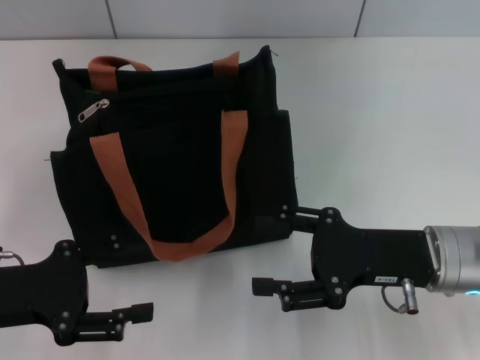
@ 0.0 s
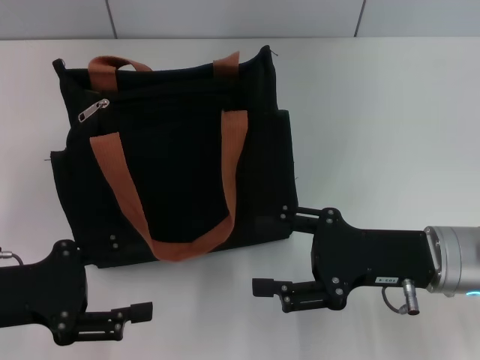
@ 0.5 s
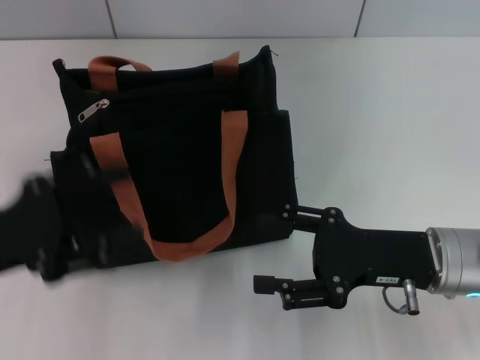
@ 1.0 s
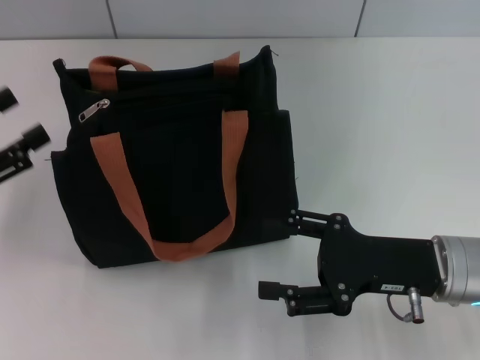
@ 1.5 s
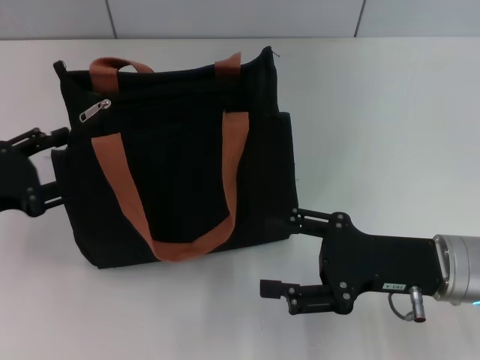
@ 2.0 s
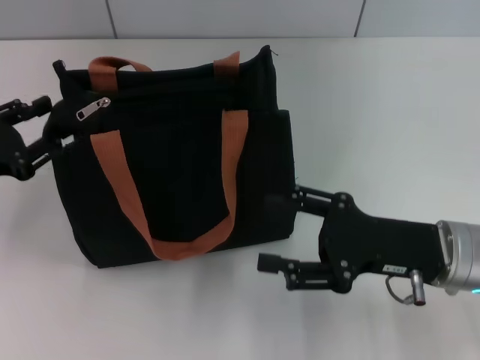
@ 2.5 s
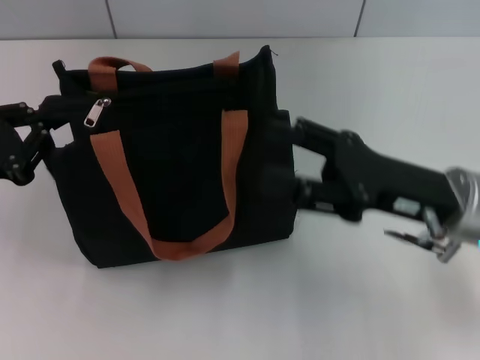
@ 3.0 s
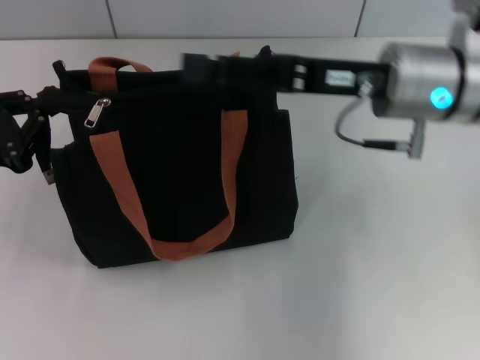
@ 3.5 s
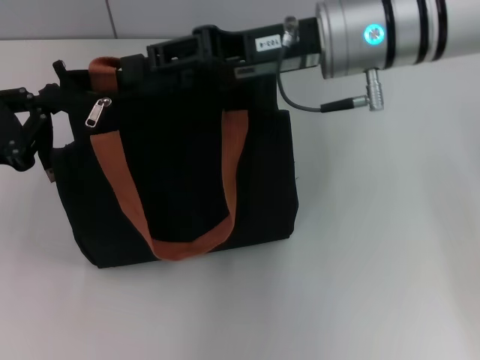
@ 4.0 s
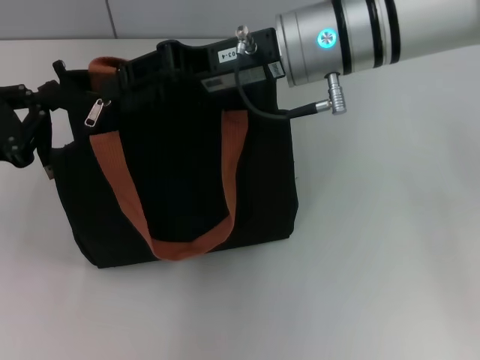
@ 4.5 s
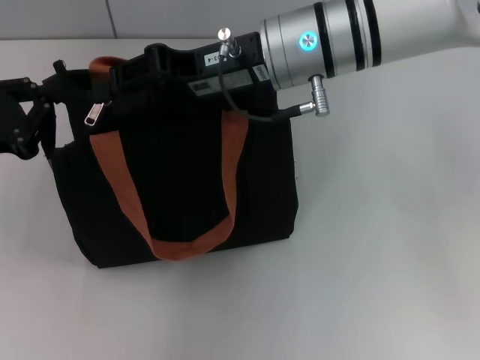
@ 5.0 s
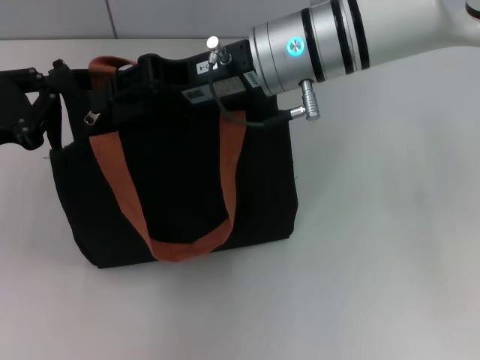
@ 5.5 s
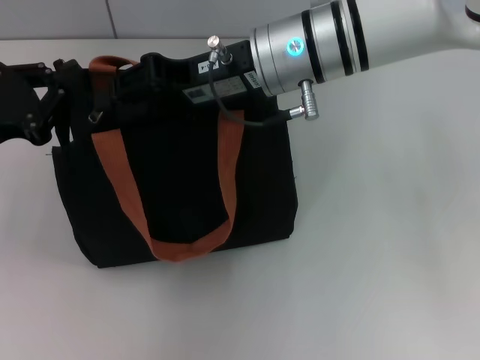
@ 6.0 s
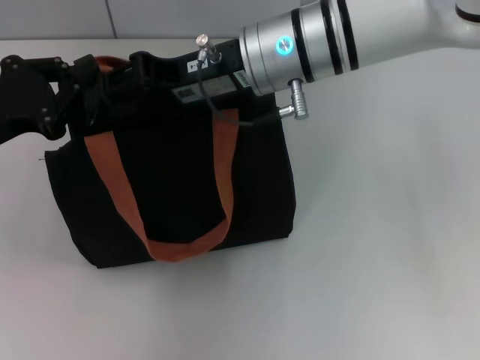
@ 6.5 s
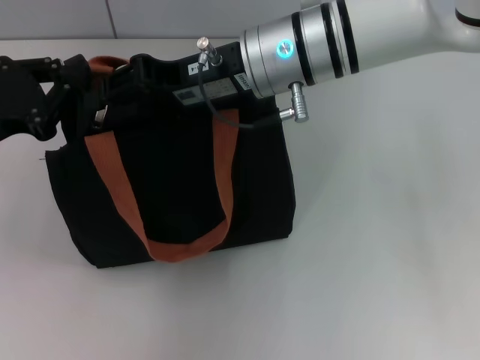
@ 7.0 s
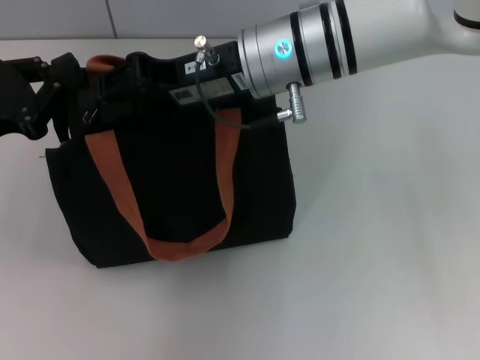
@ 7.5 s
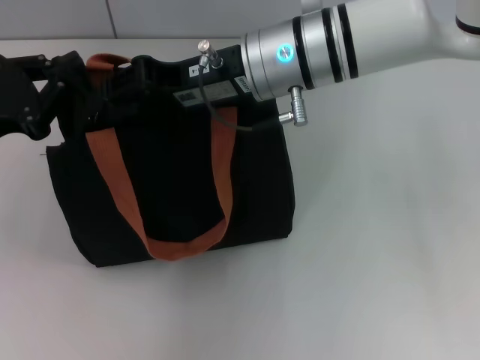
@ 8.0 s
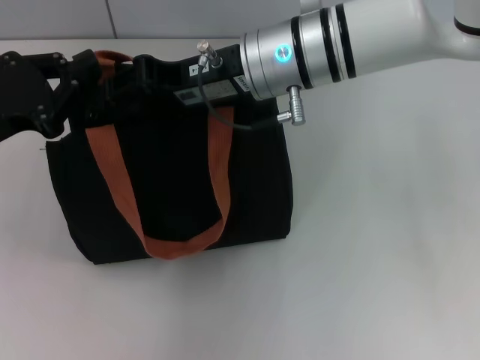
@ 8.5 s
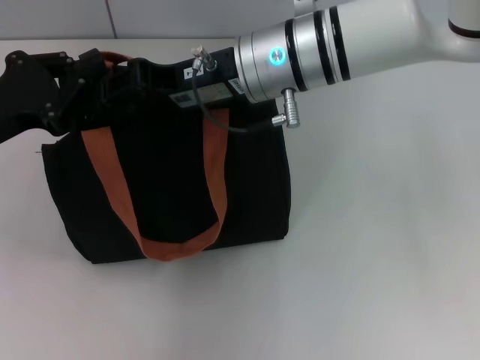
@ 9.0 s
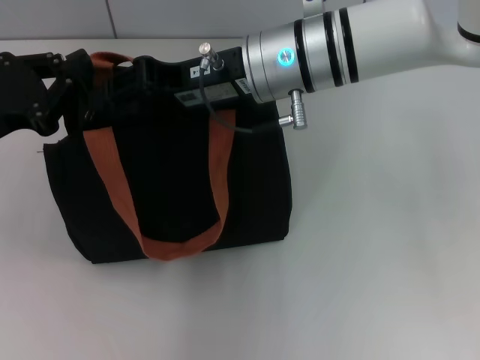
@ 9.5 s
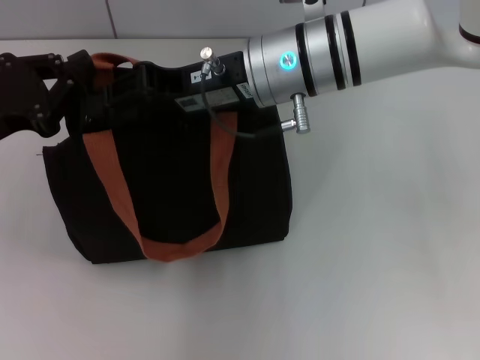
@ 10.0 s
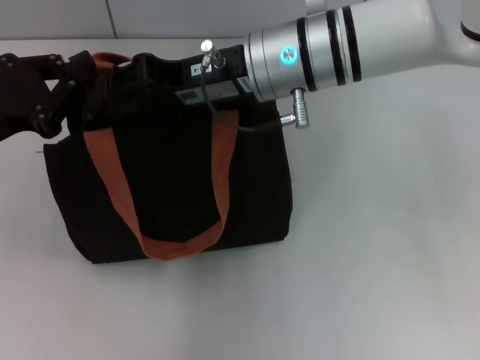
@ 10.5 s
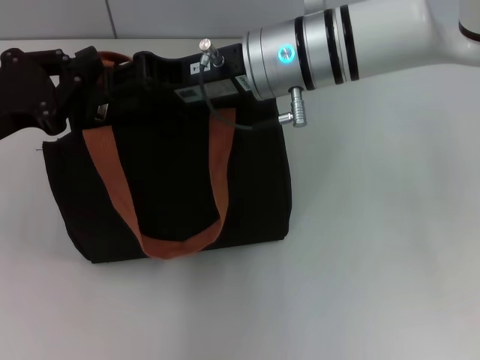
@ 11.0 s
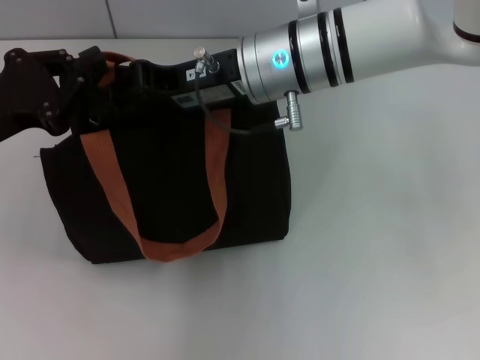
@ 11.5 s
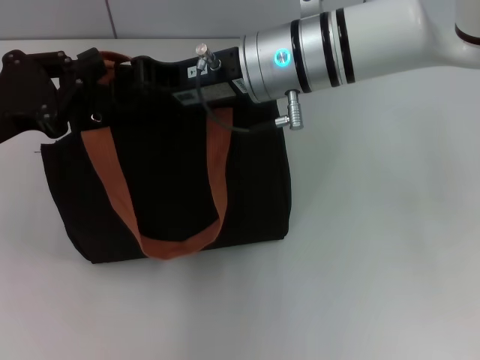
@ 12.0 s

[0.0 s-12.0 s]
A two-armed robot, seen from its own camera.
0.0 to 2.0 s: The left gripper goes some 5 cm forward.
2.0 to 4.0 s: The right gripper shifts some 25 cm upward, forward and to the left; the left gripper closes its fingers.
4.0 to 6.0 s: The right gripper shifts by some 5 cm.
6.0 to 8.0 s: Both grippers stay about where they are.
8.0 to 10.0 s: The grippers stay close to where they were, moving slightly.
10.0 to 12.0 s: Both grippers stay put.

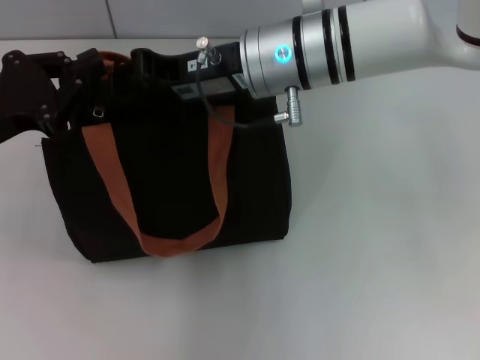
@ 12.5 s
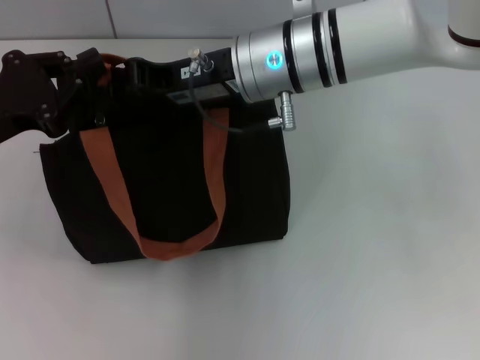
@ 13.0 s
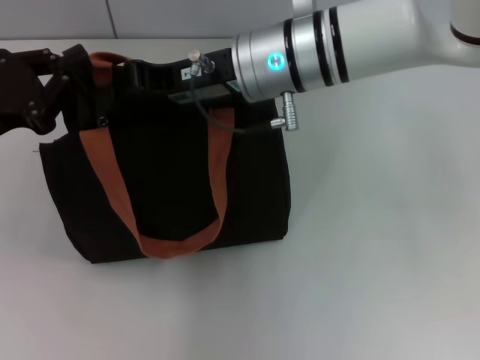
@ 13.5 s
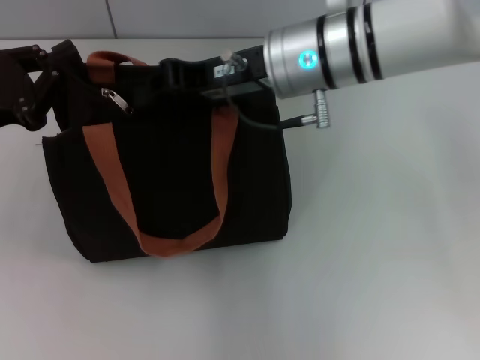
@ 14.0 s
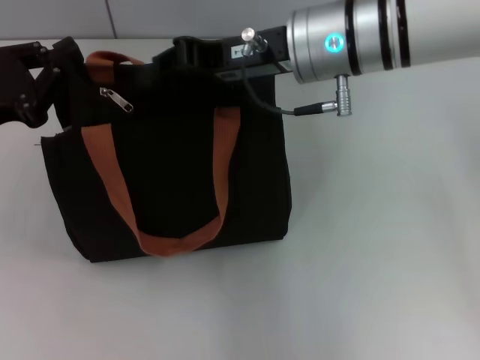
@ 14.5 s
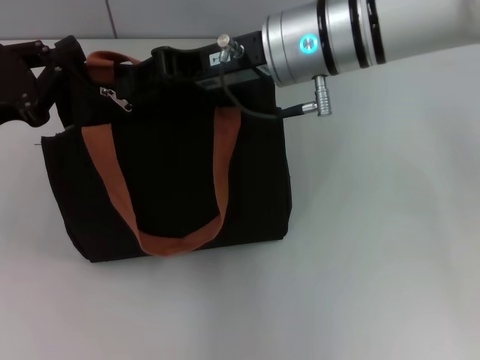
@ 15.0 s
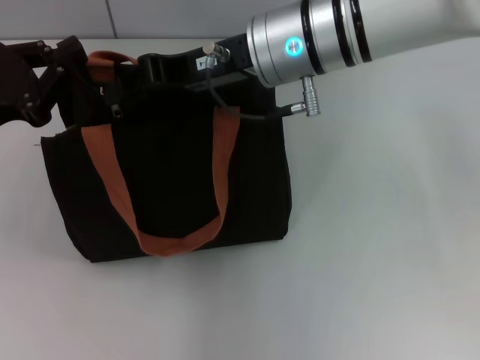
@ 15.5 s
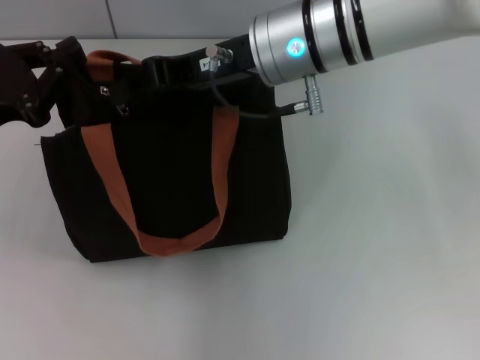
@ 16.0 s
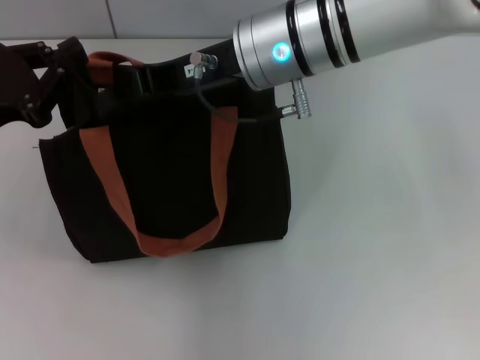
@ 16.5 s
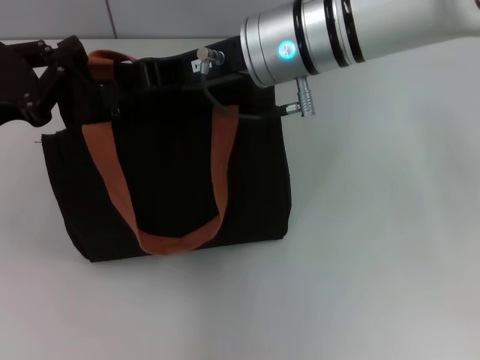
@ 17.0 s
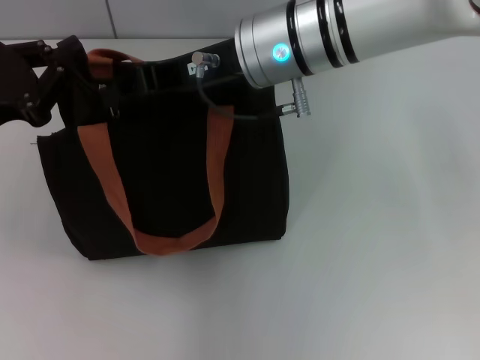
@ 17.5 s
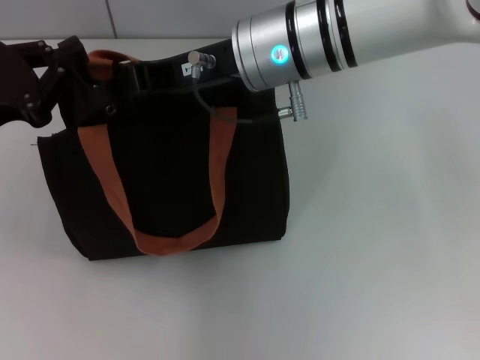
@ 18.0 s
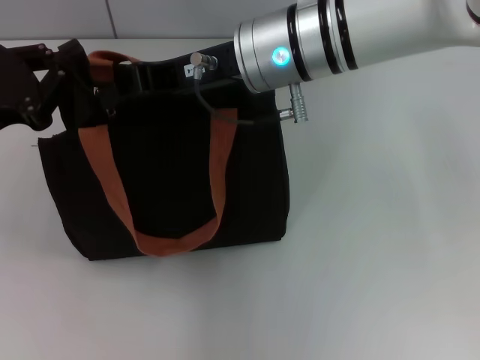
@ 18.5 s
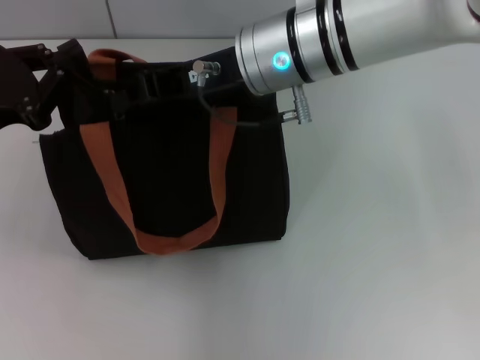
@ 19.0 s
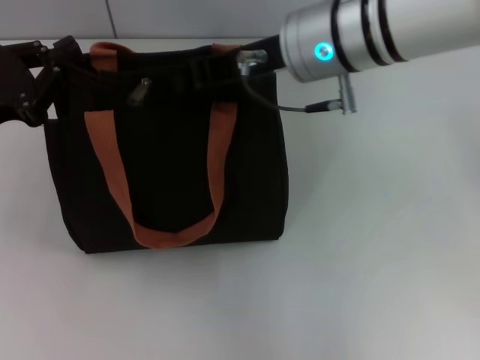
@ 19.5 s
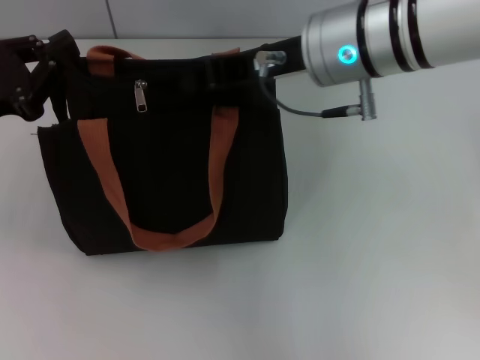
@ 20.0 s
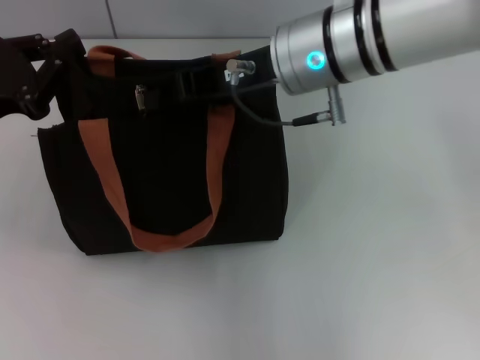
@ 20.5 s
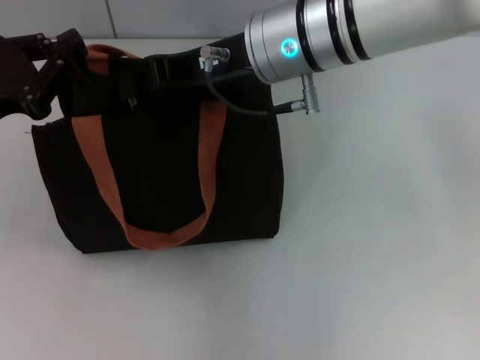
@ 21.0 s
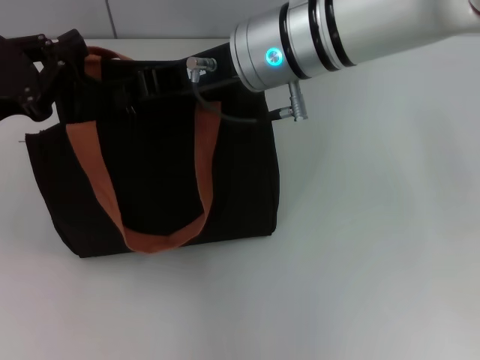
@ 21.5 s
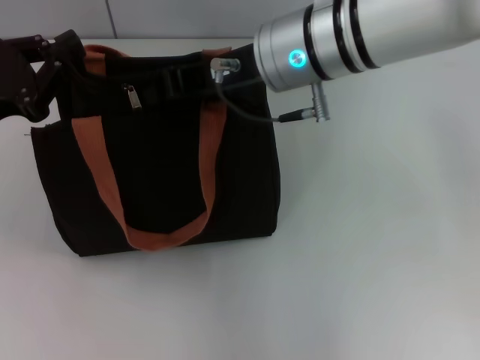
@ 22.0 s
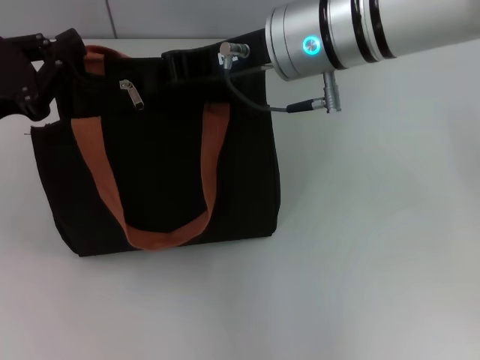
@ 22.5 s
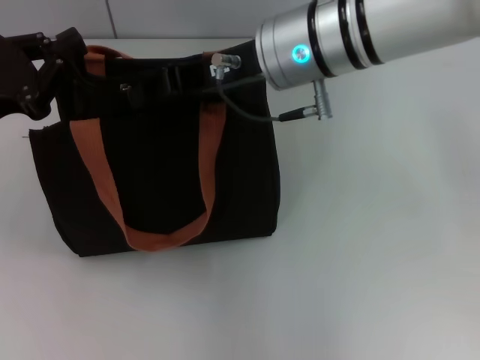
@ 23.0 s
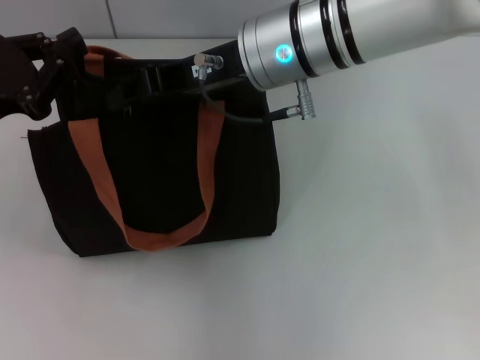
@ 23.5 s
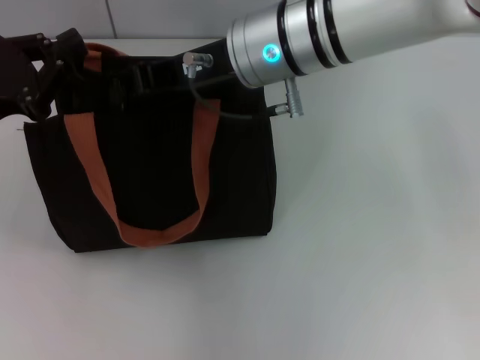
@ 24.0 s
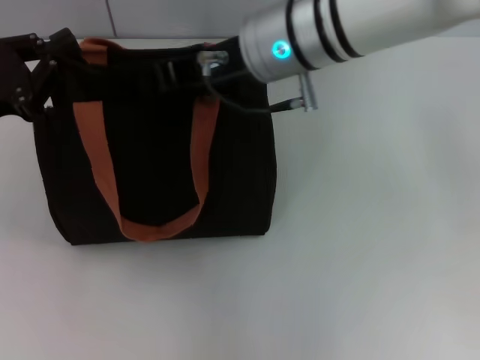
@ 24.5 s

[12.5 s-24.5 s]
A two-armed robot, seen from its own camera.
12.5 to 14.5 s: The grippers make only small movements.
14.5 to 16.5 s: The grippers make only small movements.
16.5 to 18.5 s: Neither gripper changes place.
20.5 to 24.5 s: The grippers move only a little.

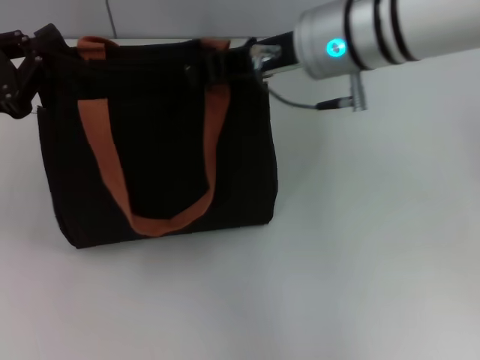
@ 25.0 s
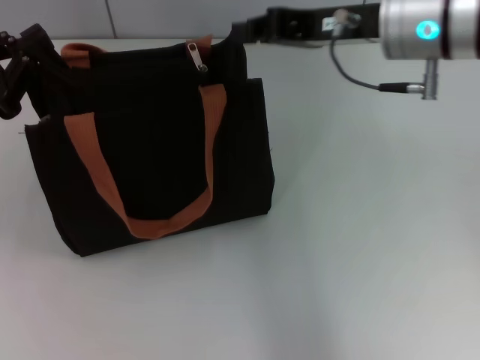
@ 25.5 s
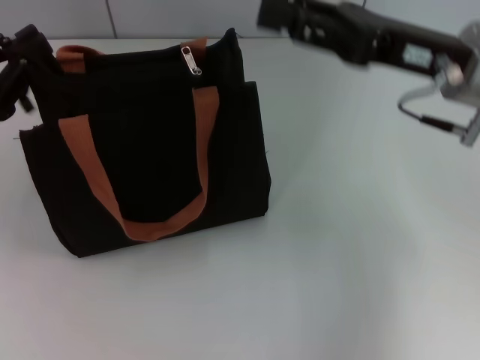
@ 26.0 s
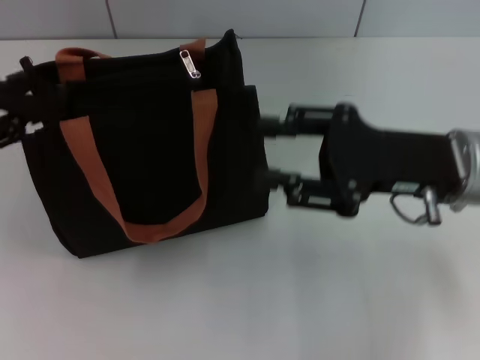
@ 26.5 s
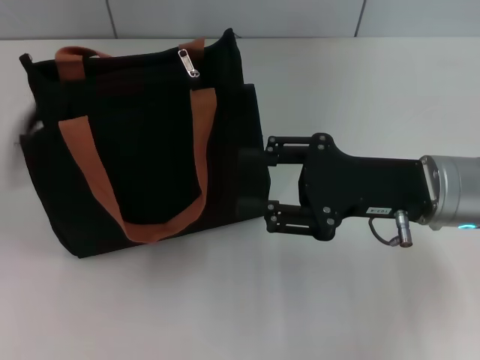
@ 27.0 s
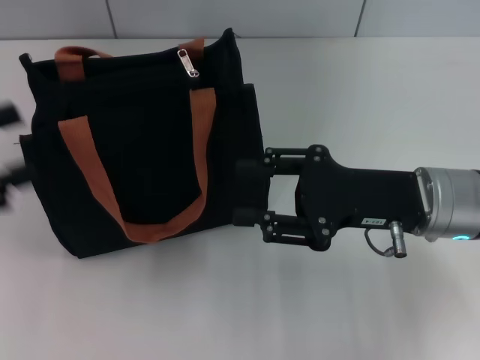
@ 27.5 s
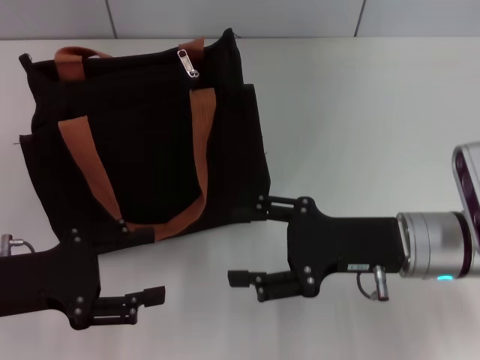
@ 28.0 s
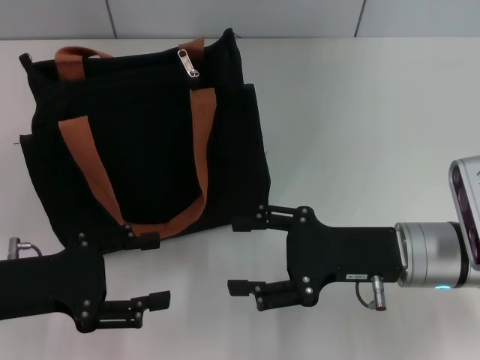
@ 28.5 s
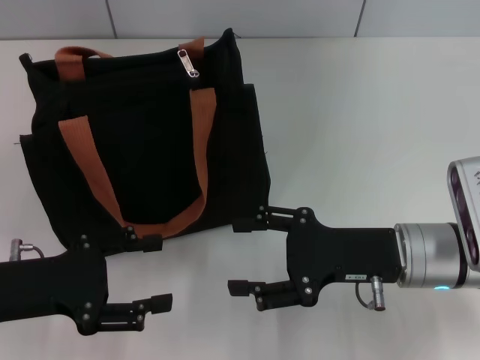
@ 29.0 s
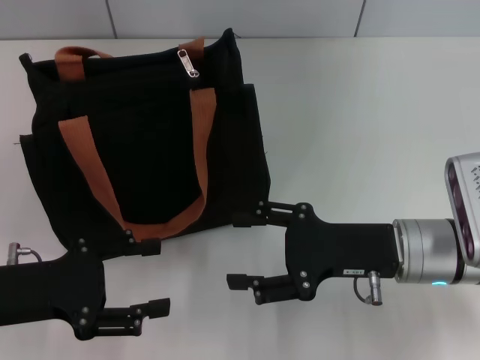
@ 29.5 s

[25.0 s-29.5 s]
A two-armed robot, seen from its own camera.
Step, 25.5 to 26.5 s: Grab the zipper with your left hand.
25.0 to 27.0 s: The right gripper moves downward, to the right and backward, roughly 15 cm, and opens its fingers, while the left gripper is displaced to the left and backward by about 10 cm, and opens up.
27.0 to 29.5 s: The right gripper heads downward, covering about 5 cm; the left gripper goes roughly 15 cm to the right and downward.
